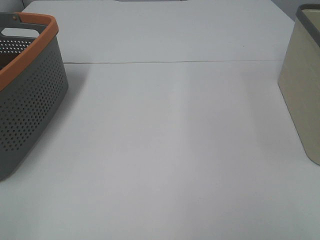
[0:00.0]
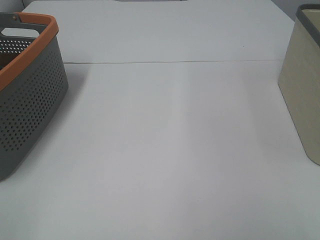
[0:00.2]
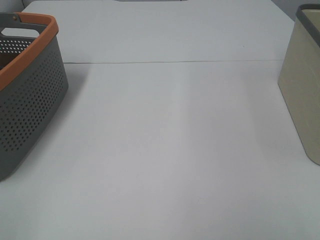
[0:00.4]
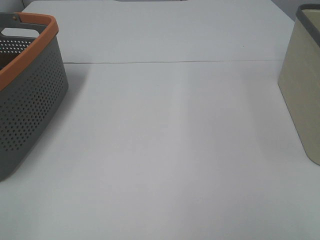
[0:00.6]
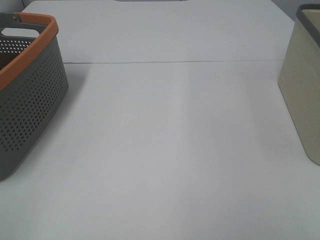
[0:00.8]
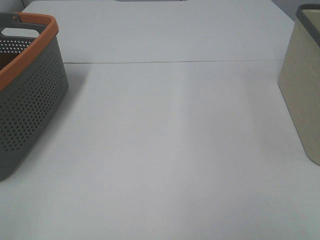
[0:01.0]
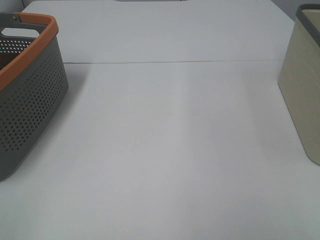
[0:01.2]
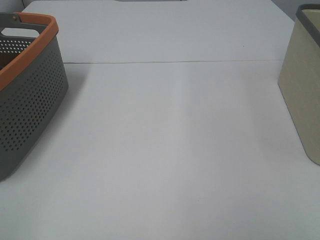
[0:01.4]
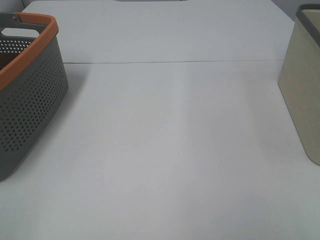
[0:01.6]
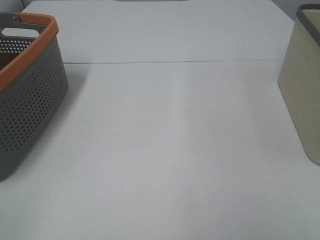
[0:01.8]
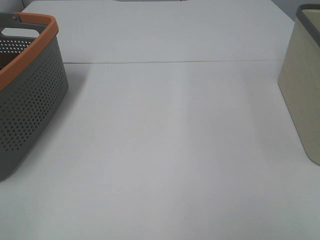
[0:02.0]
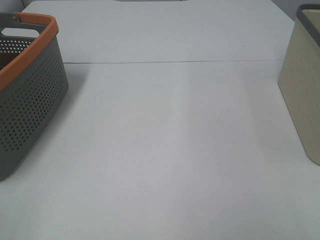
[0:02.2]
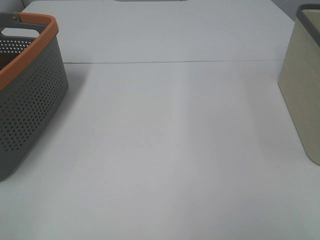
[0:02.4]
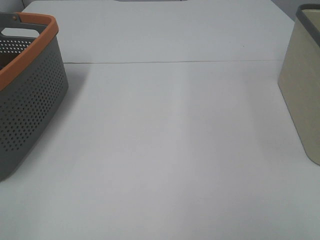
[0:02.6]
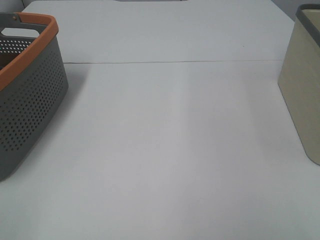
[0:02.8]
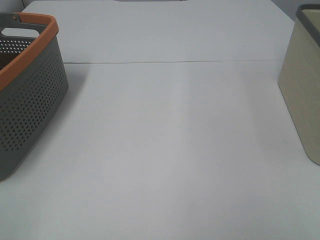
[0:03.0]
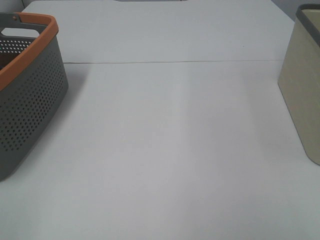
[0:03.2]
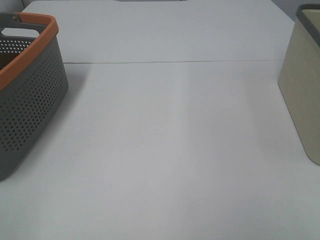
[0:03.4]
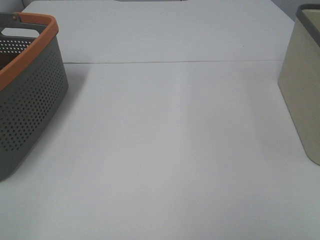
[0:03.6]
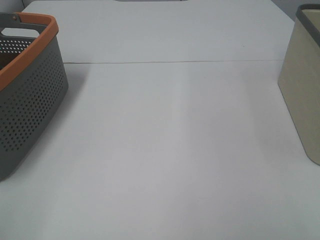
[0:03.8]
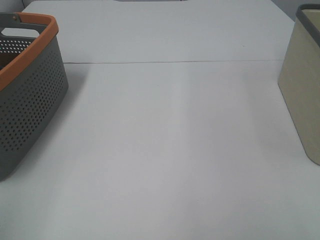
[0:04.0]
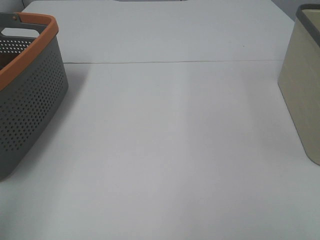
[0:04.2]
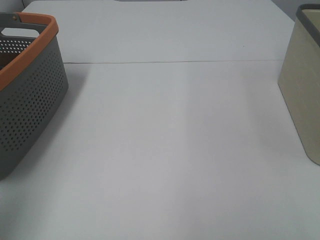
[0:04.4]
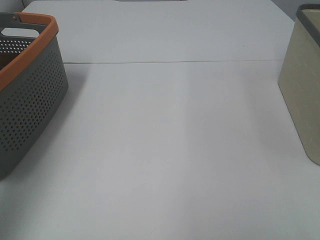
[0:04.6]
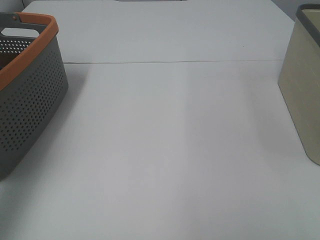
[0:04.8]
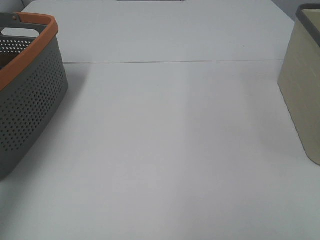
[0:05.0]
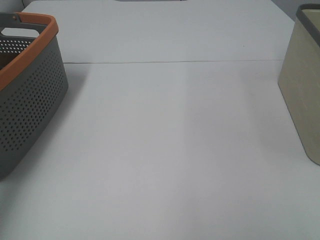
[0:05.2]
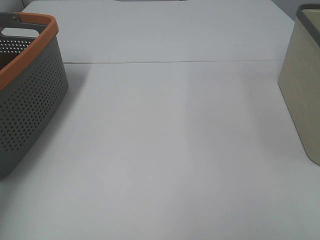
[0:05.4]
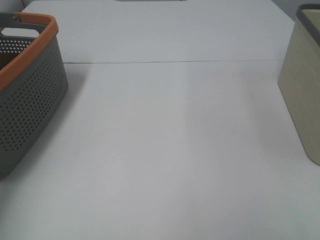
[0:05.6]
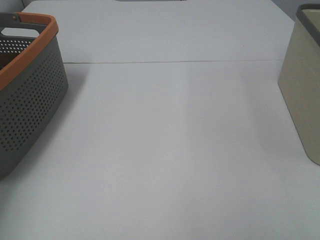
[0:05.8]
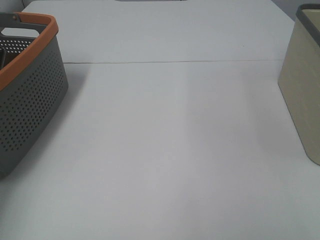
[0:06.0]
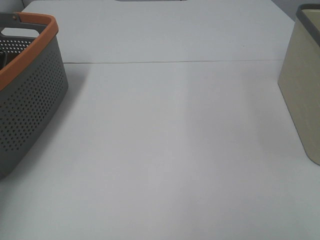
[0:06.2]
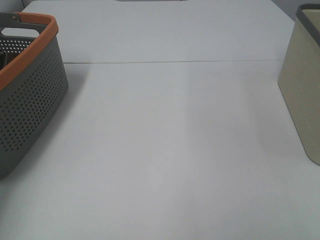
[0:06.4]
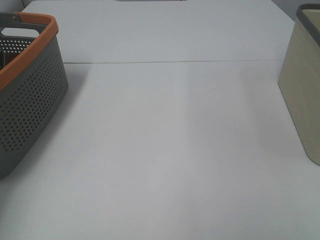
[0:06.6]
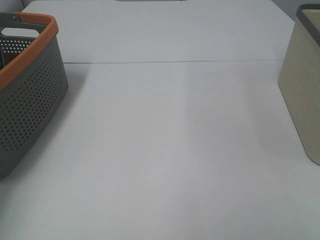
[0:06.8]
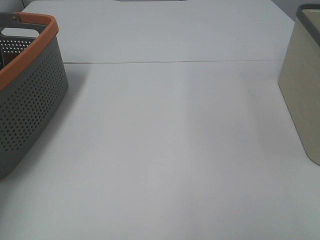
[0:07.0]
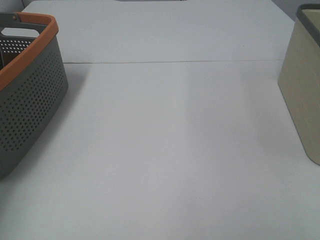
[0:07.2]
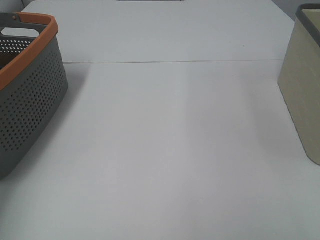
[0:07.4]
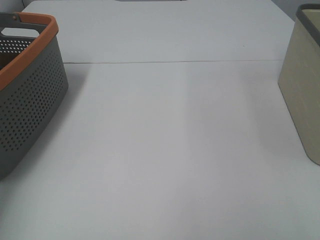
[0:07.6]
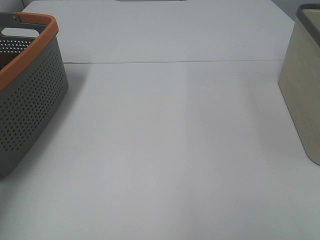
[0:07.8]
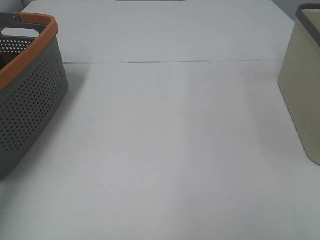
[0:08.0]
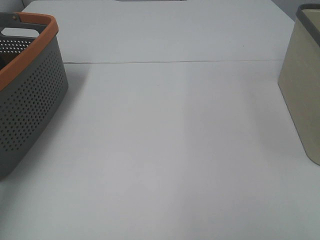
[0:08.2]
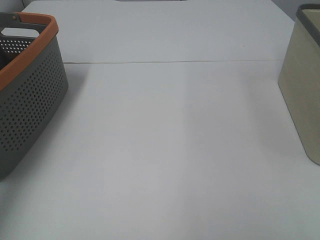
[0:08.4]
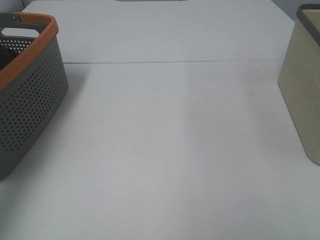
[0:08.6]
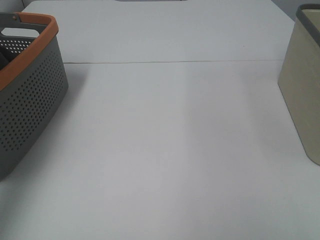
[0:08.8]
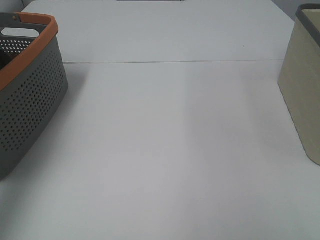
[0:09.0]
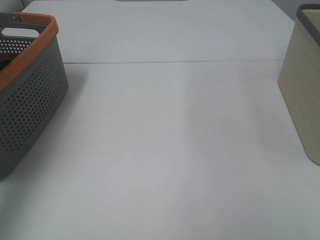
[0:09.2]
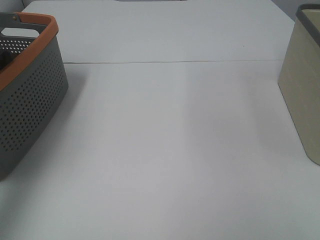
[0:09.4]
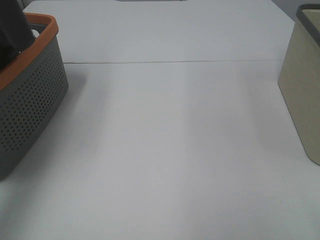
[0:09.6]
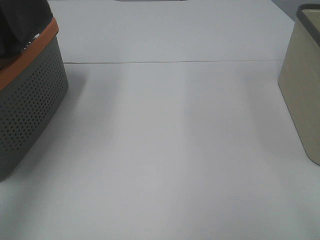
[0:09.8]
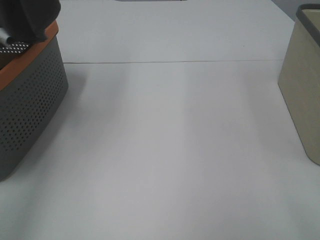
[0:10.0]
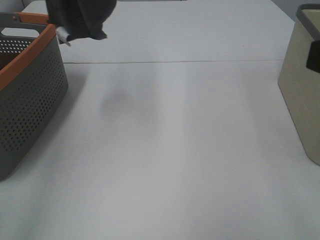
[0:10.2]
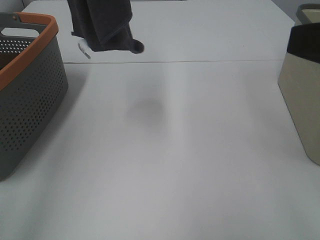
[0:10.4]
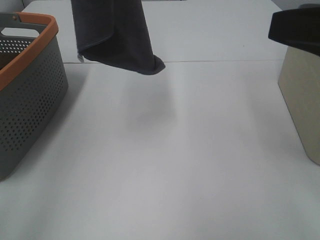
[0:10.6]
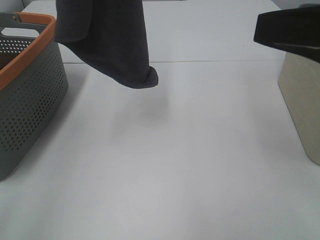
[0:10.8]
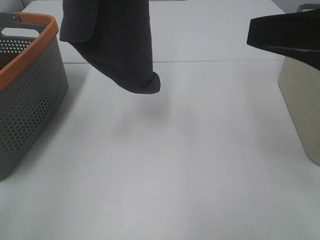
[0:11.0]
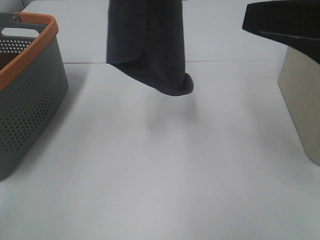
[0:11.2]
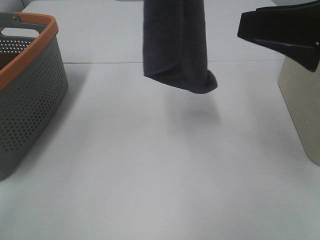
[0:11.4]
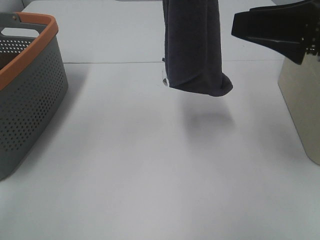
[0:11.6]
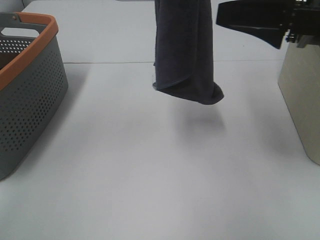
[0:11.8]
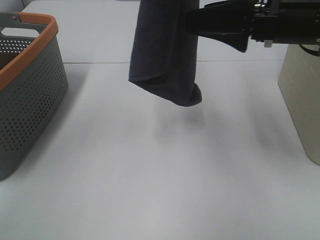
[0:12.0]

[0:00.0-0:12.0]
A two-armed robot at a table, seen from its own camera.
Task of the whole recording: Remove the towel and place it.
0:00.0 to 0:03.0: Both grippers stay put.
0:03.0 to 0:04.4: The left gripper shifts some 20 cm forward and upward.
0:04.4 to 0:06.0: The left gripper travels forward and downward by some 35 cm.
0:07.6 to 0:09.0: The left gripper travels upward and backward by roughly 25 cm.
0:09.0 to 0:10.4: The left gripper goes about 15 cm to the right and upward, while the right gripper goes approximately 15 cm forward.
0:10.4 to 0:12.0: The left gripper travels to the right by roughly 10 cm. The right gripper heads forward and to the left, covering approximately 15 cm.

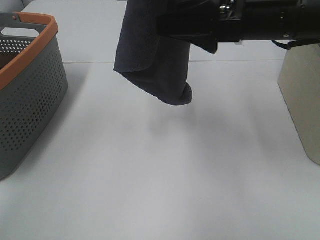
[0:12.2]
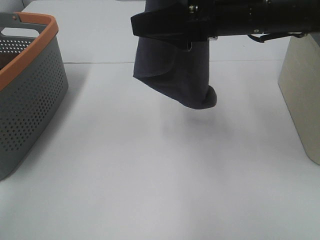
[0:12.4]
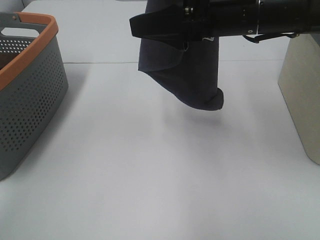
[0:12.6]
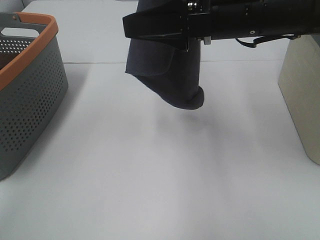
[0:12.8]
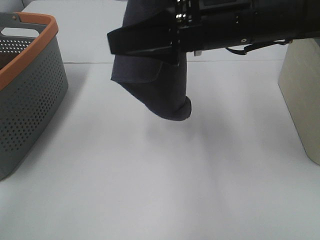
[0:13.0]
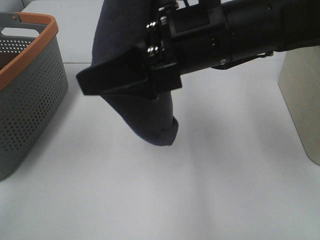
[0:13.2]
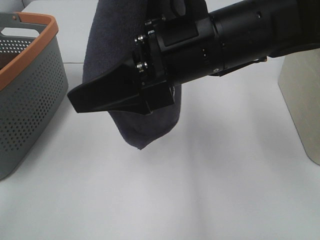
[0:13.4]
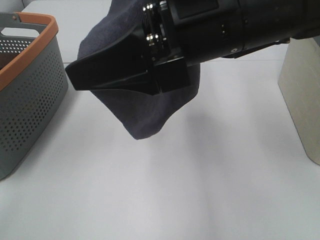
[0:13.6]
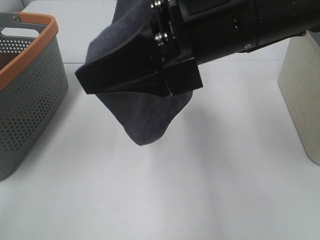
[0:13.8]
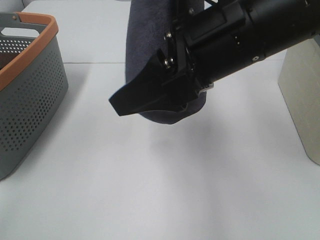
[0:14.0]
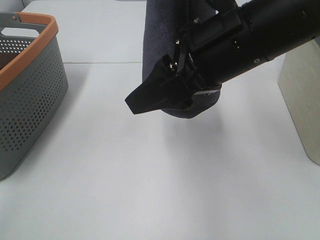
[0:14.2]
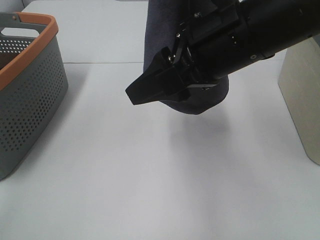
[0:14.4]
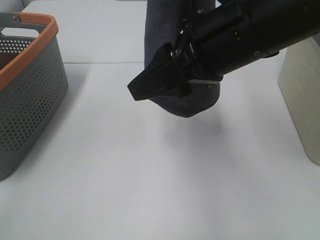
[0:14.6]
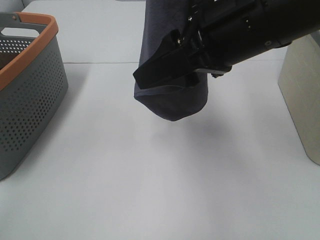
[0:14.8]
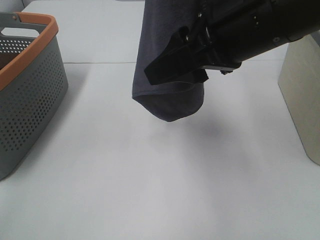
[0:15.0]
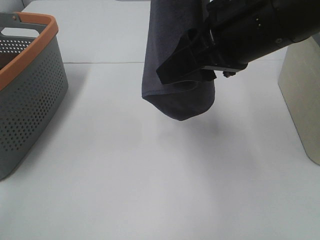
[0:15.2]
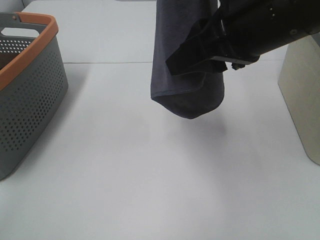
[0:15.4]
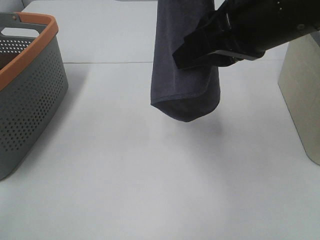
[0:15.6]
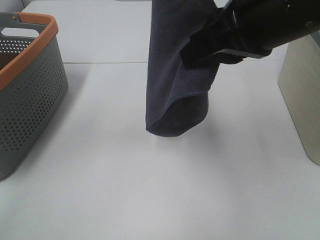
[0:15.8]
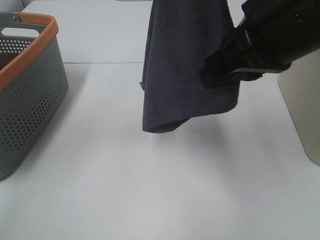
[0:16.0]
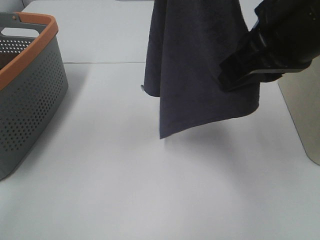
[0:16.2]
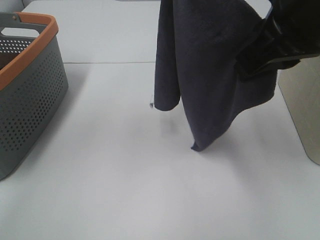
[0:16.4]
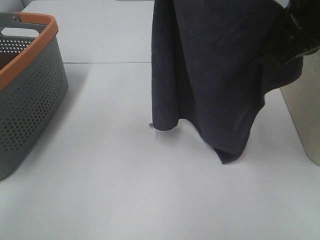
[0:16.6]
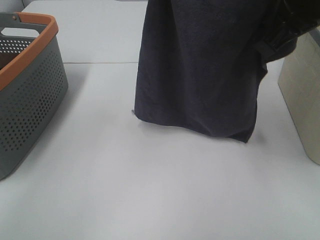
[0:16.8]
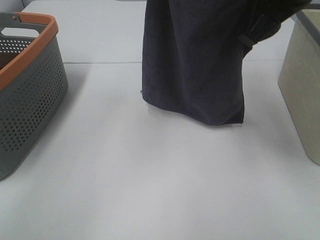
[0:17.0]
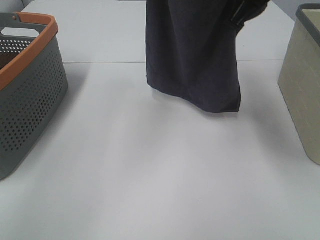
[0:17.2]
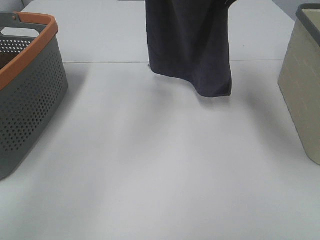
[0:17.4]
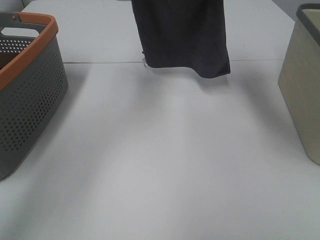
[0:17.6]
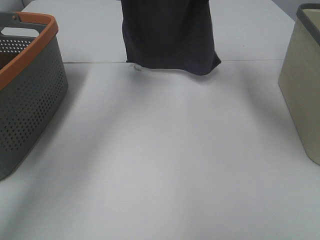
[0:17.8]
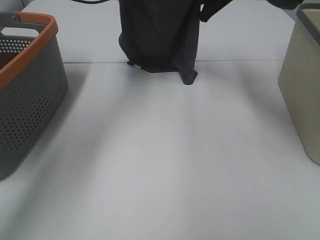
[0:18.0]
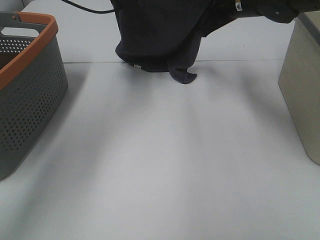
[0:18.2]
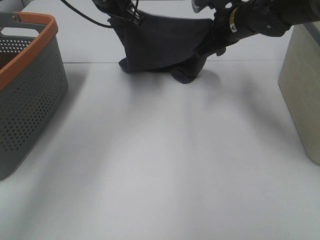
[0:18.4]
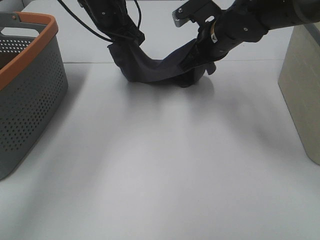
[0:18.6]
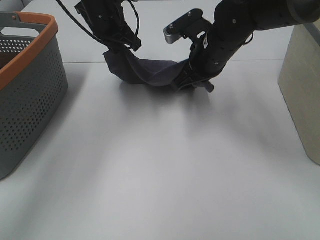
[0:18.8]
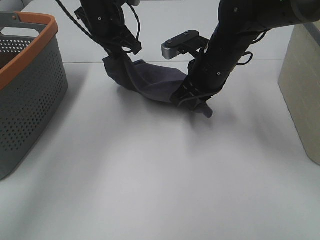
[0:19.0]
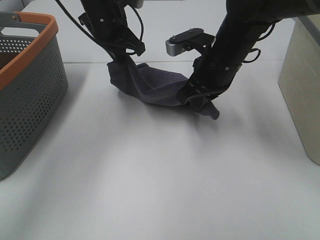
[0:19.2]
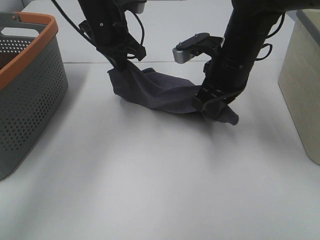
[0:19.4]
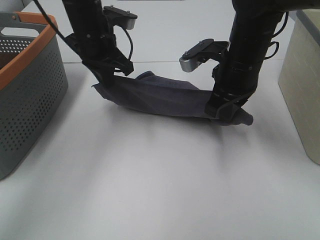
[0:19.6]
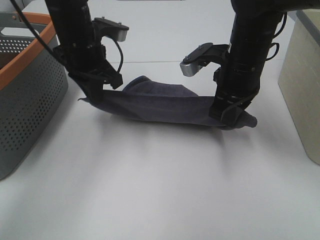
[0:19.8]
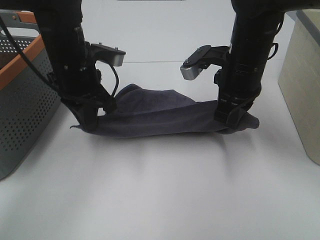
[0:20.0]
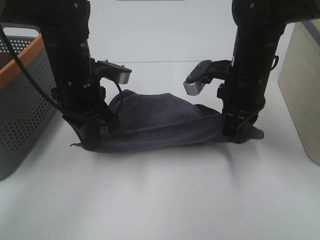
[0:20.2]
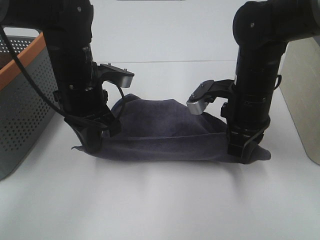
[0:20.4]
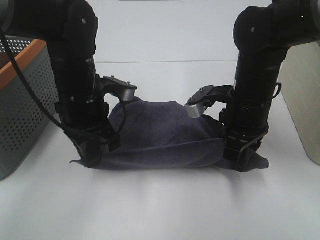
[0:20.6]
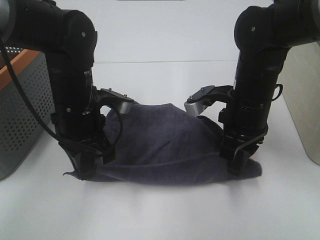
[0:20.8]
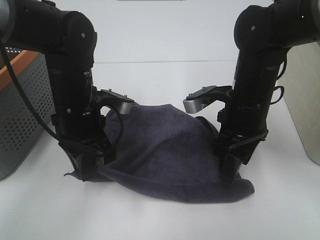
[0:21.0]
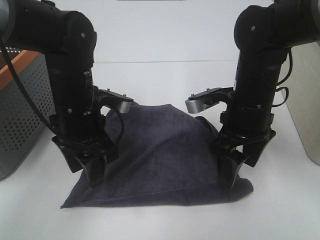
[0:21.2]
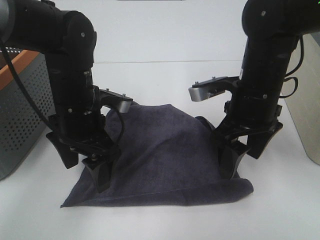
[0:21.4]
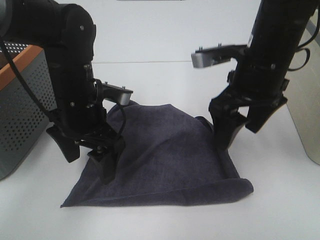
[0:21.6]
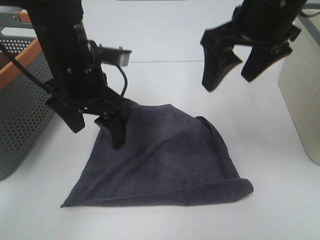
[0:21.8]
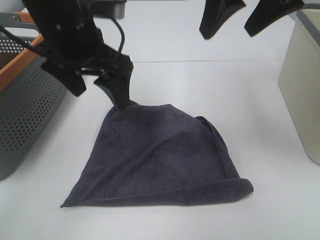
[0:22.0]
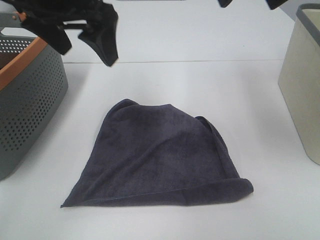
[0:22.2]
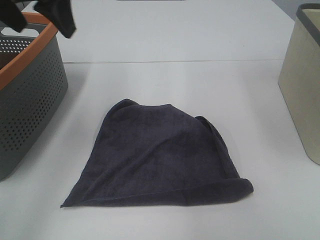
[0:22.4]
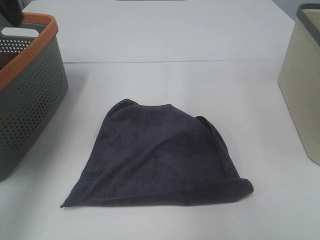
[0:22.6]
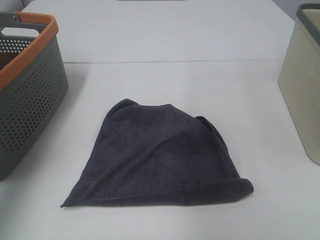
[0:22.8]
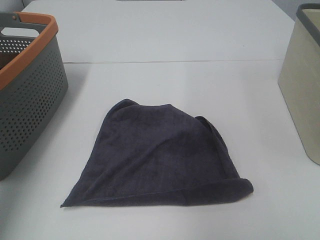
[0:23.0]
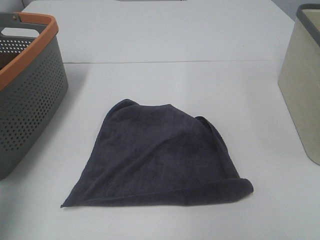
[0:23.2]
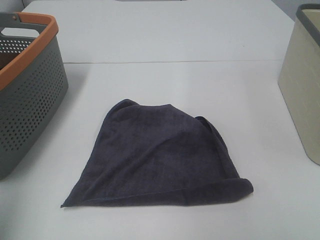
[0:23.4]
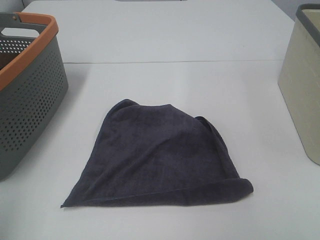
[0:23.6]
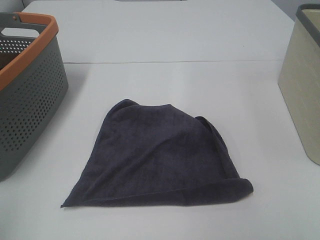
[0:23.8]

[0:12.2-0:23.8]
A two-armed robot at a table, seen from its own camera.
Task of the whole recording: Remove the towel and place it.
Step, 0:14.2 to 0:16.8: Right hand: spread the grey towel flat on the table.
Step, 0:14.2 to 0:17.0: Left hand: spread the grey towel flat on the table.
0:12.2 to 0:13.6: The right gripper travels to the left and backward by approximately 10 cm.
0:15.0 to 0:16.6: The right gripper shifts roughly 5 cm to the right, and closes. Meanwhile the left gripper is displaced downward by roughly 5 cm.
0:16.6 to 0:18.0: The right gripper travels forward by roughly 25 cm; the left gripper goes approximately 25 cm forward and downward.
0:18.0 to 0:19.4: Both grippers move backward and downward, some 15 cm.
0:19.4 to 0:21.0: The right gripper shifts about 5 cm backward, and opens. Meanwhile the left gripper travels backward and downward by about 15 cm.
0:21.0 to 0:22.4: The left gripper moves upward and to the left, roughly 20 cm, and opens, while the right gripper heads upward, covering roughly 25 cm.
0:22.4 to 0:23.8: The left gripper moves backward and to the left, approximately 30 cm.
